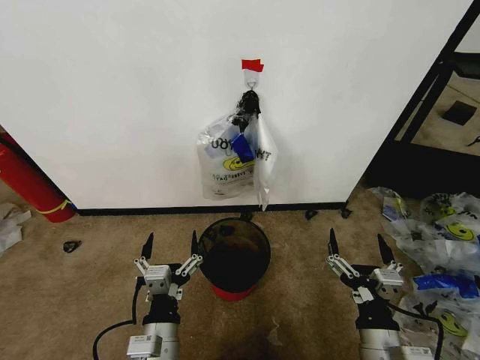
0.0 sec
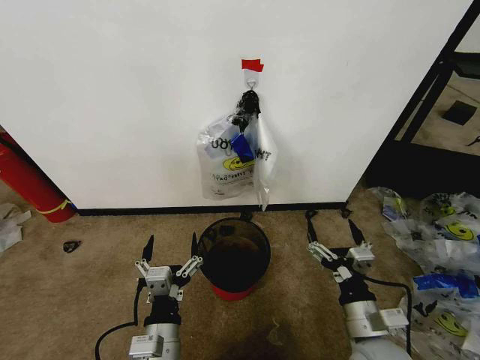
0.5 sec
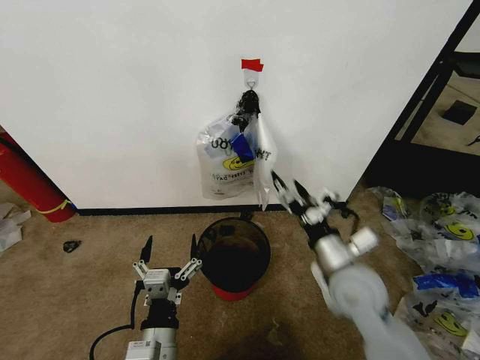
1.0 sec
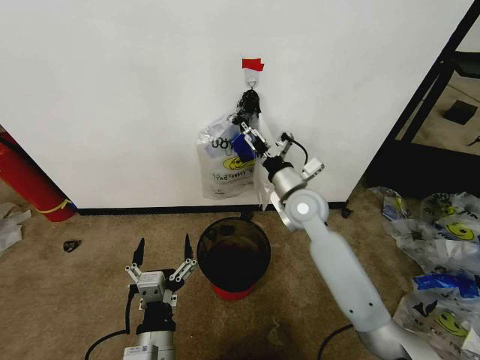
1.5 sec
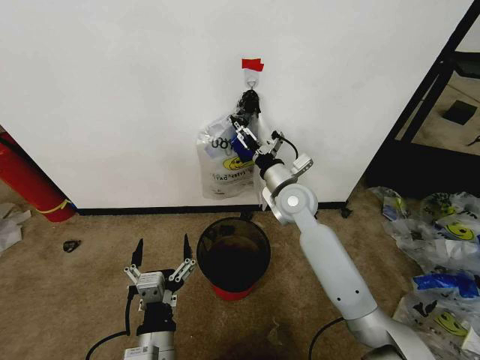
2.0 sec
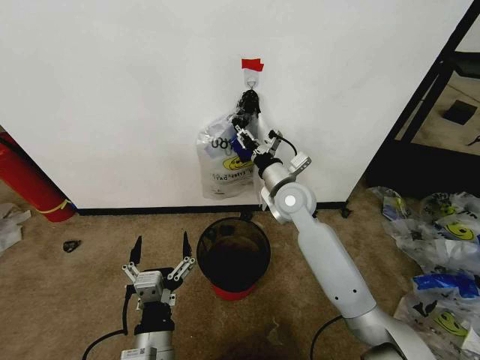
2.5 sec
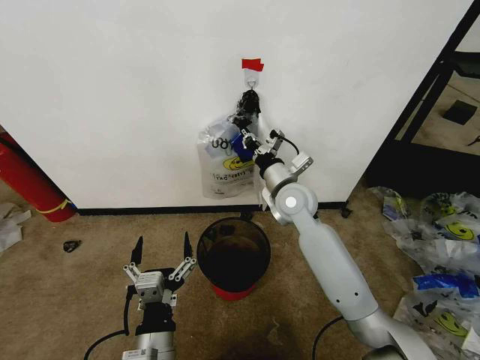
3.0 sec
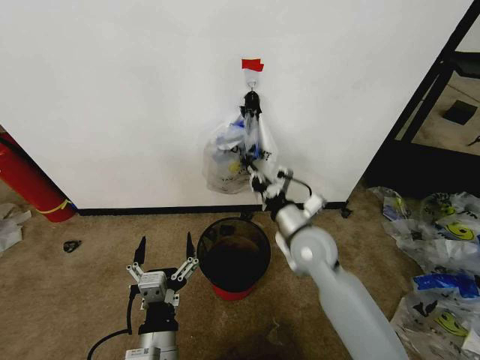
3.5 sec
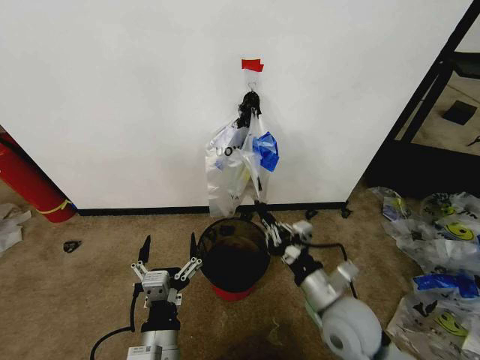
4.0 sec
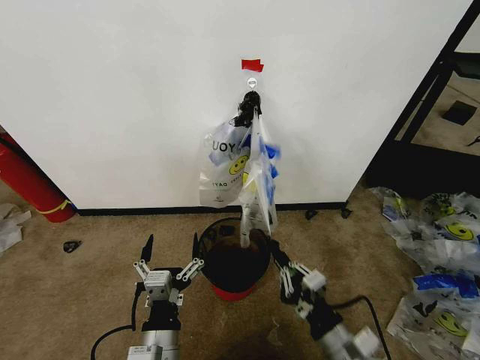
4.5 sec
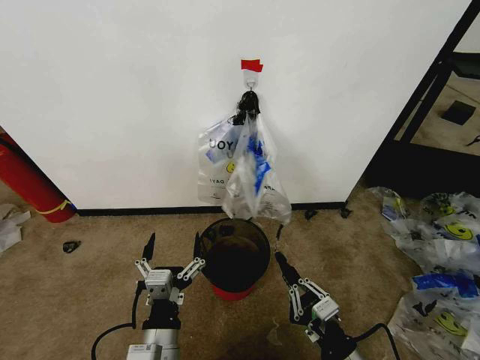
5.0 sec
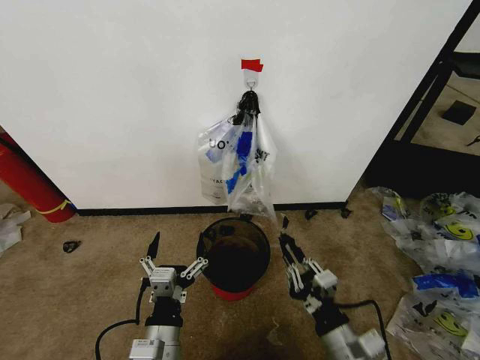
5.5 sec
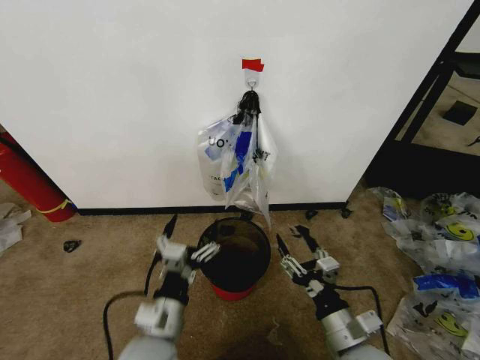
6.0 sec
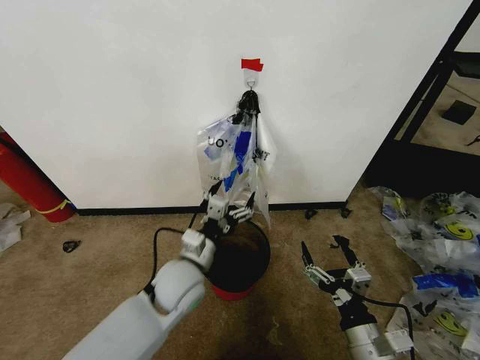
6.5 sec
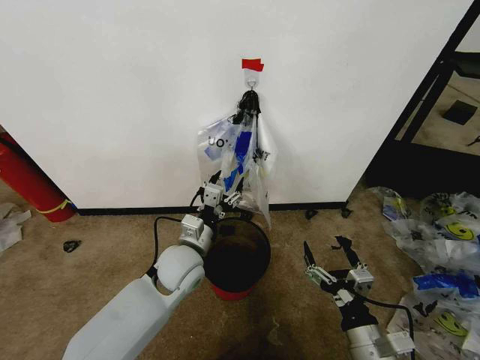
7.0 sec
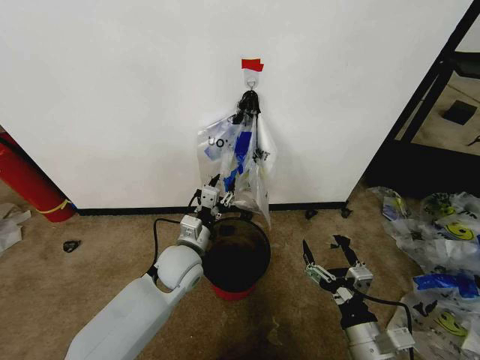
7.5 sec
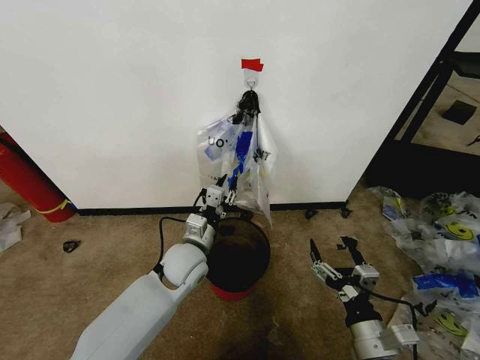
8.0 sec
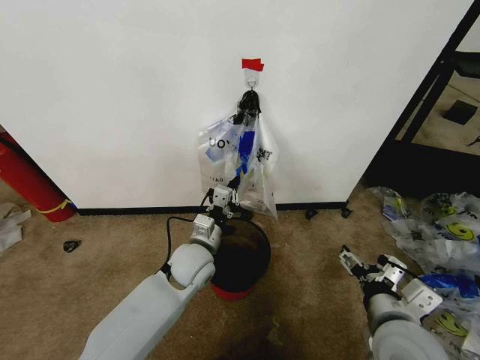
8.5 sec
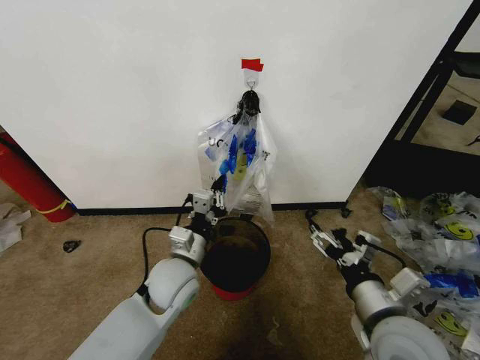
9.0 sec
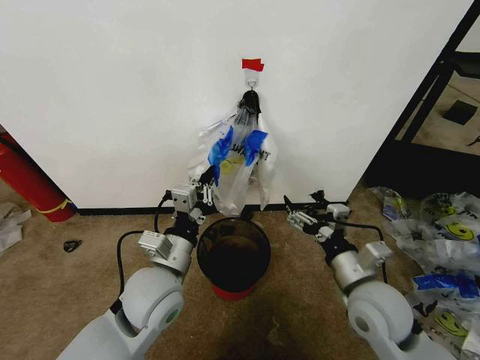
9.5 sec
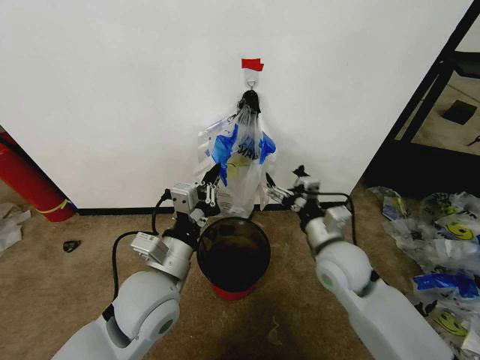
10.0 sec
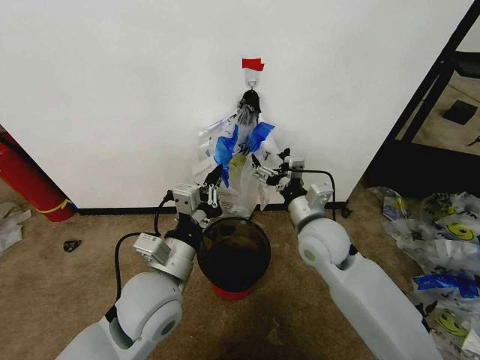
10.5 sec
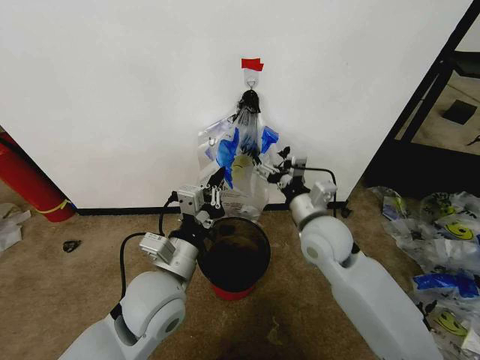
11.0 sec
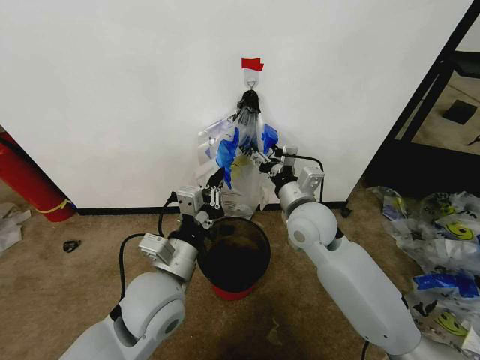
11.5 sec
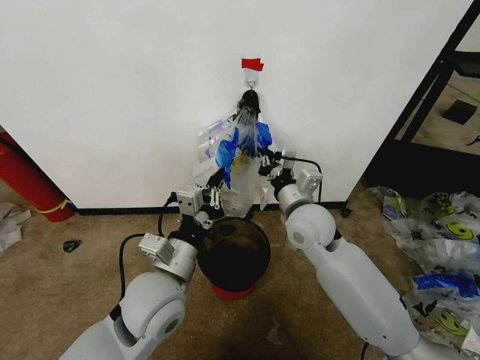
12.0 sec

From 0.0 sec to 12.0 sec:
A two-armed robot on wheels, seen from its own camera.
Task of the whole recording: Pick up the garbage bag from the wall and place it over the trash bin.
From 2.0 sec to 4.0 sec: The right gripper shifts roughly 25 cm backward, and closes up.
From 4.0 sec to 6.0 sec: The right gripper is displaced backward by about 5 cm, and opens its fingers.
From 6.0 sec to 8.0 sec: The left gripper shifts about 20 cm forward, and closes.
From 8.0 sec to 10.0 sec: The left gripper is displaced backward and upward by approximately 15 cm. Meanwhile the right gripper shifts some 20 cm forward and upward.
From 10.0 sec to 12.0 sec: The right gripper travels forward by some 5 cm, and closes.

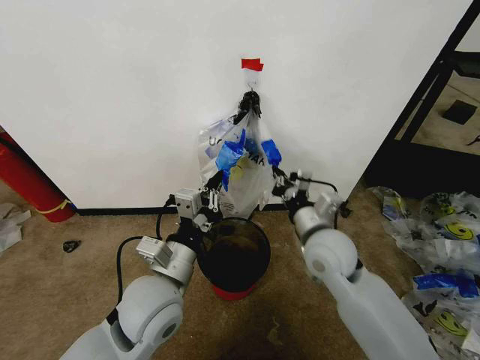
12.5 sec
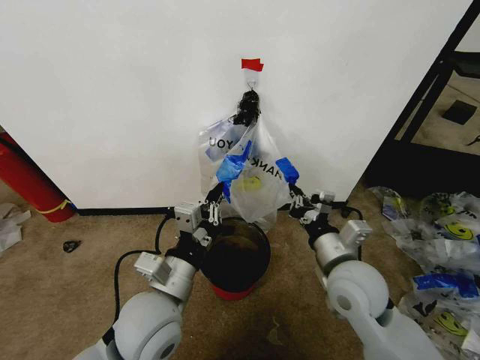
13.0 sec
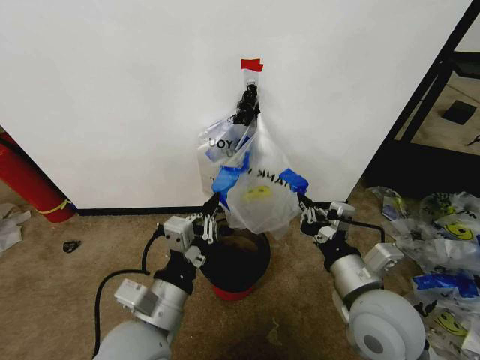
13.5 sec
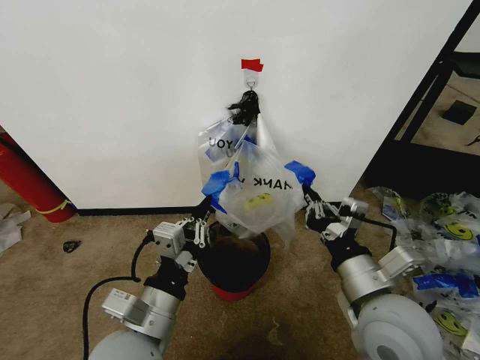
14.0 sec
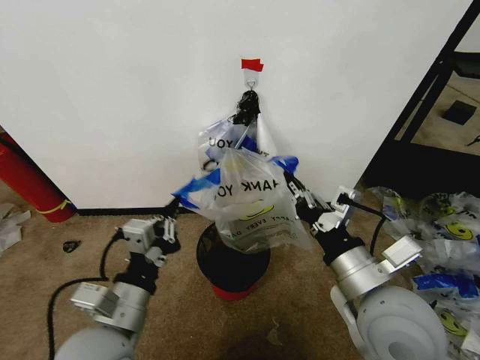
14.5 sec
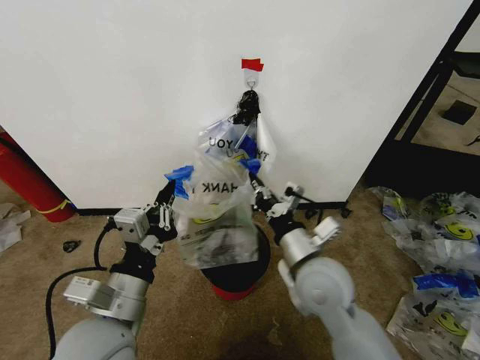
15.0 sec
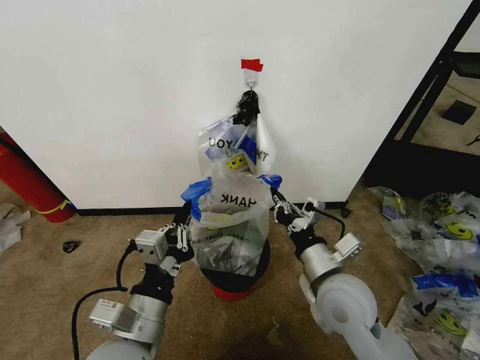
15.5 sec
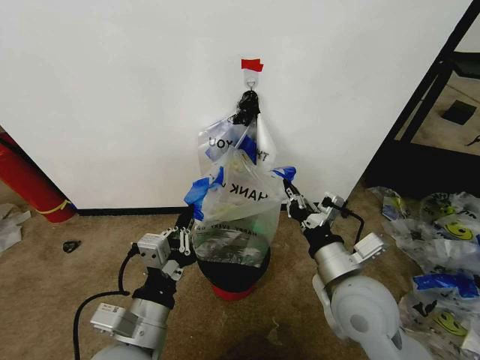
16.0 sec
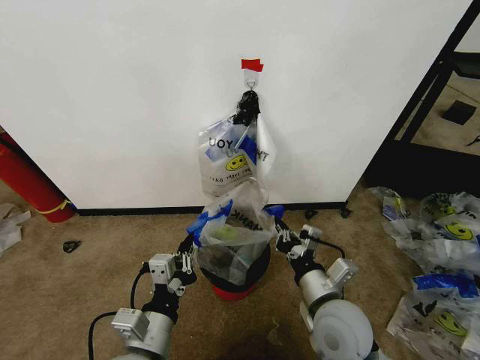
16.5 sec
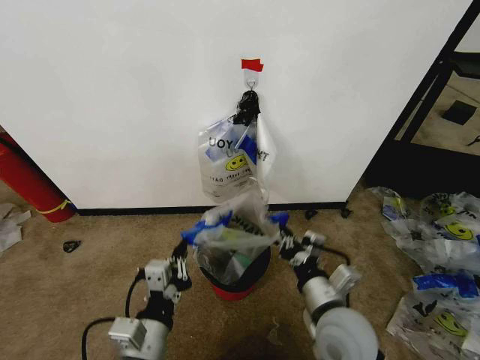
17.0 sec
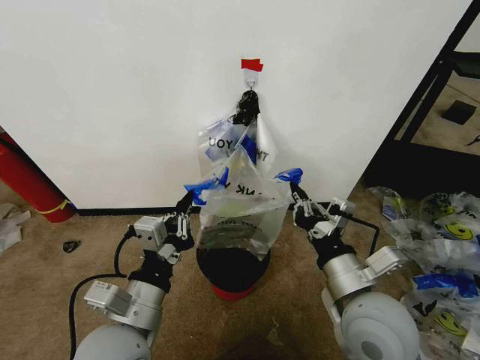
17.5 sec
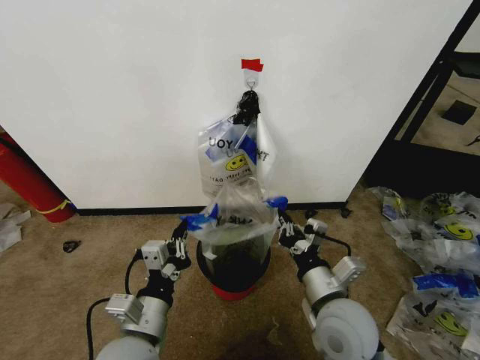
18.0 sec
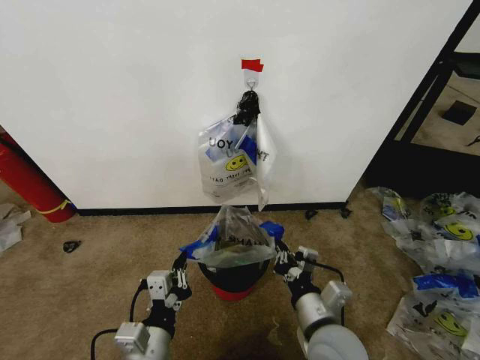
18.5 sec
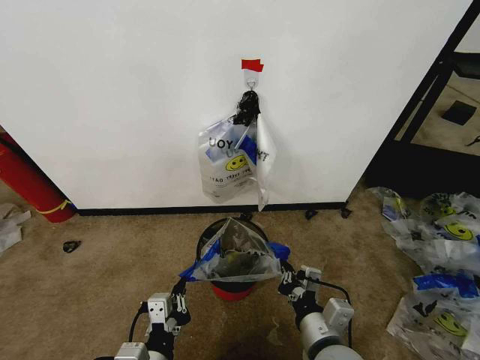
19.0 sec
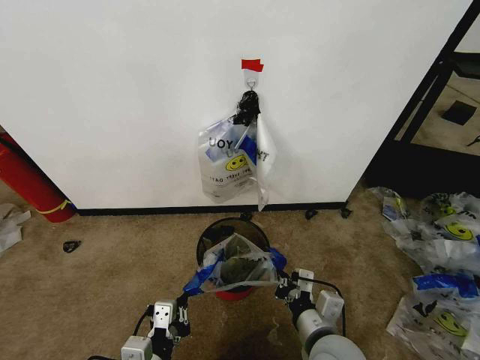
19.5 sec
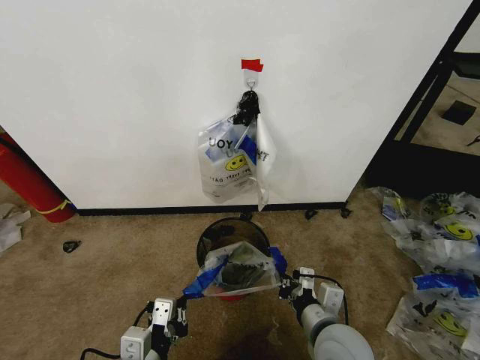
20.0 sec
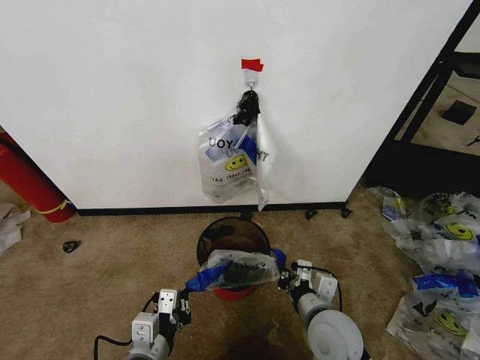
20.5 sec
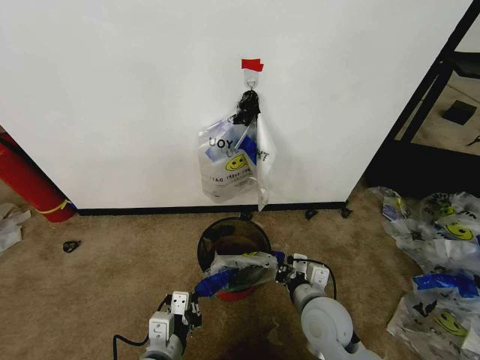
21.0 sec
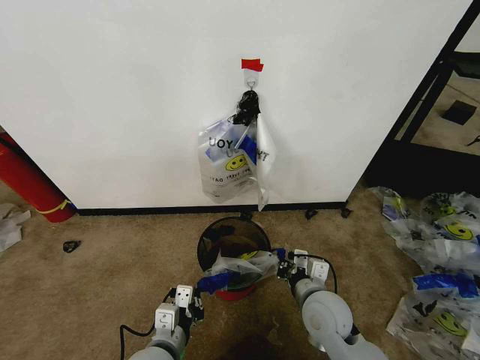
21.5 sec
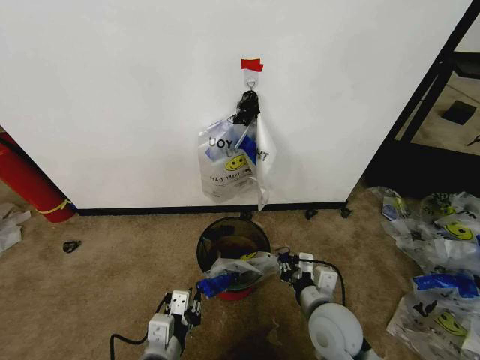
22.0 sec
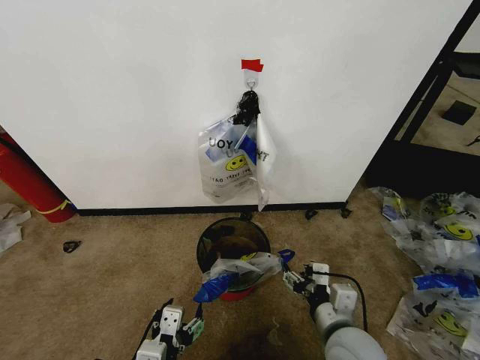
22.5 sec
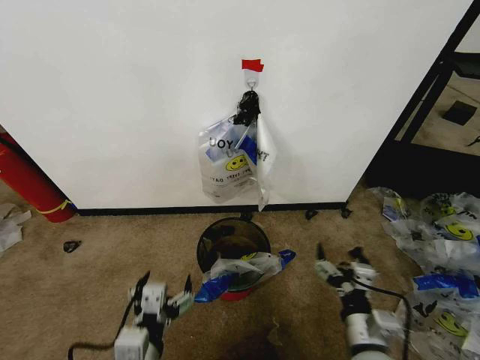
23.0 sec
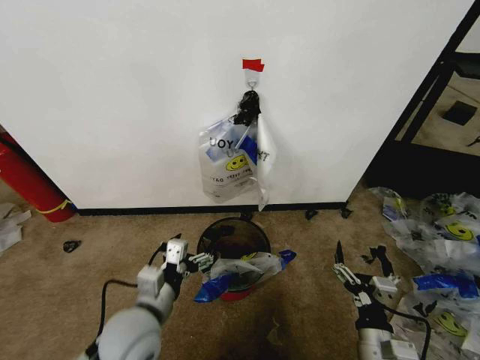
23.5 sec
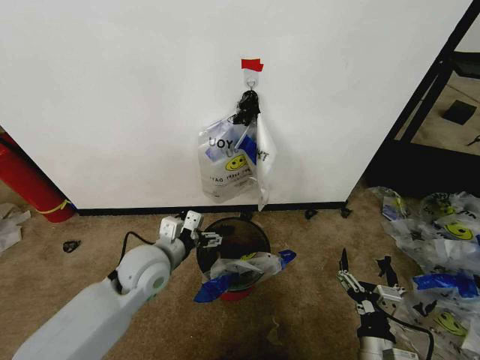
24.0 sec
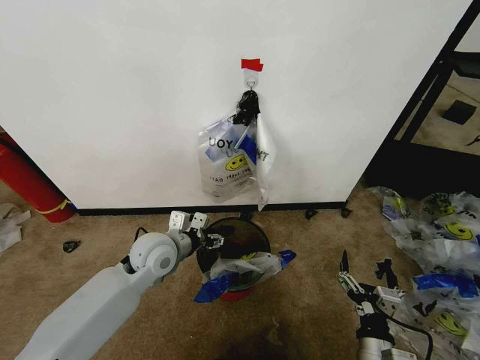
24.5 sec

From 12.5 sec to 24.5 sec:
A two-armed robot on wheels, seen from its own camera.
Task of the whole recording: Pick up the garbage bag from the wall and place it over the trash bin.
From 12.5 sec to 14.5 sec: The right gripper goes roughly 15 cm backward and upward. Meanwhile the left gripper shifts some 10 cm backward and to the left.
From 14.5 sec to 16.5 sec: The left gripper is displaced downward by about 5 cm. The right gripper moves downward, roughly 10 cm.
From 16.5 sec to 18.5 sec: The right gripper reaches some 10 cm upward, then returns. The left gripper moves roughly 5 cm upward and comes back.
From 20.5 sec to 22.5 sec: The right gripper opens up. Meanwhile the left gripper opens up.
From 22.5 sec to 24.5 sec: The left gripper shifts about 30 cm forward, while the right gripper goes some 10 cm downward, backward and to the right.

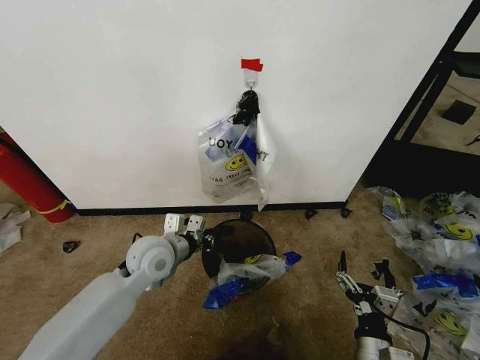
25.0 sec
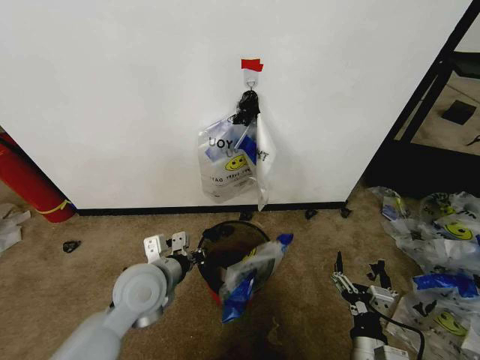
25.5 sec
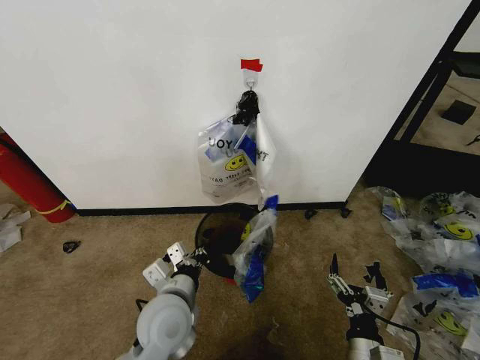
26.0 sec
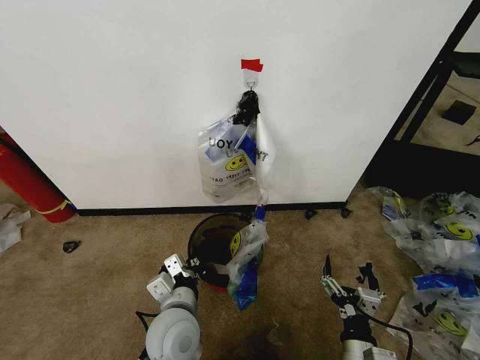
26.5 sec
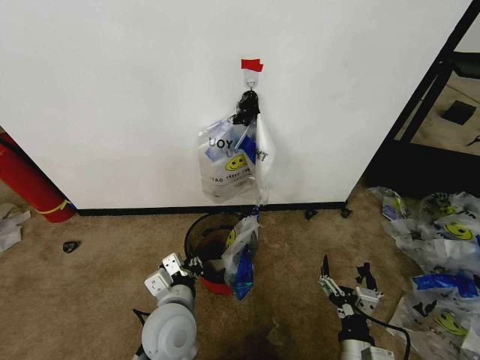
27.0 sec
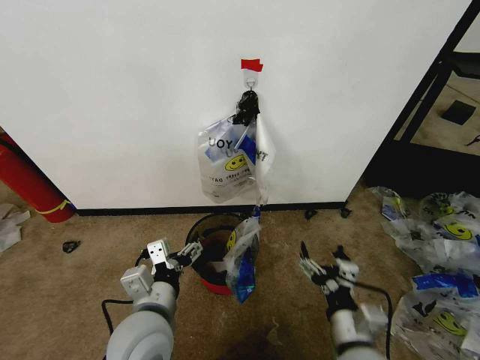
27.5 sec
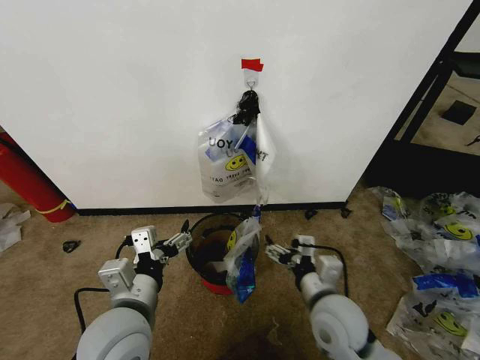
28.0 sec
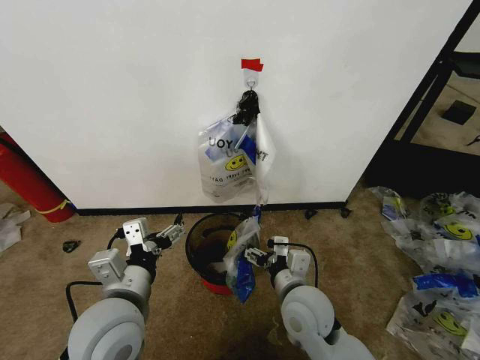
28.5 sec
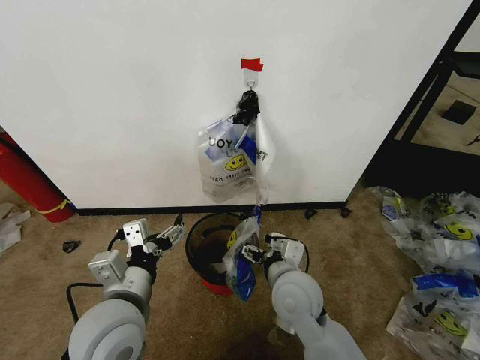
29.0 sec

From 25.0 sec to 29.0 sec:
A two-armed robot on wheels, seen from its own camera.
Task of the whole recording: Pick up the garbage bag from the wall and place it over the trash bin.
From 25.0 sec to 27.0 sec: The left gripper shifts roughly 15 cm backward and to the right.
From 27.0 sec to 29.0 sec: The right gripper goes some 20 cm forward, to the left and upward, while the left gripper travels upward and to the left by approximately 10 cm, and opens its fingers.
